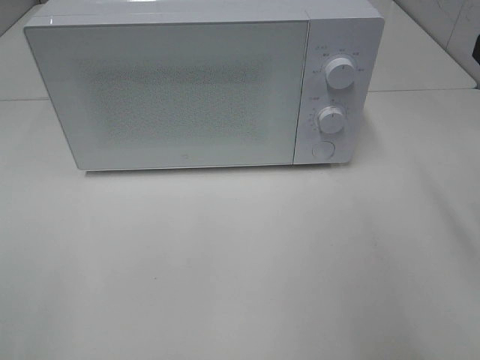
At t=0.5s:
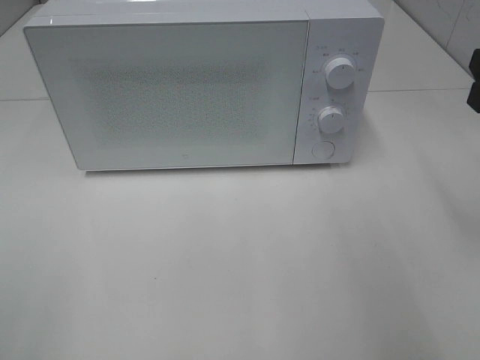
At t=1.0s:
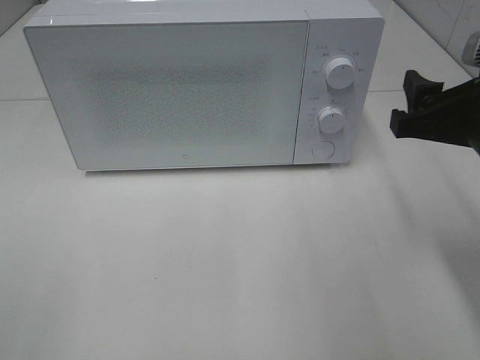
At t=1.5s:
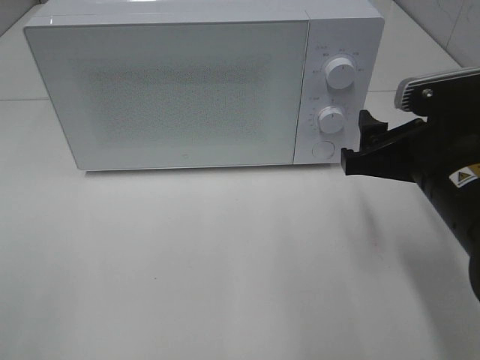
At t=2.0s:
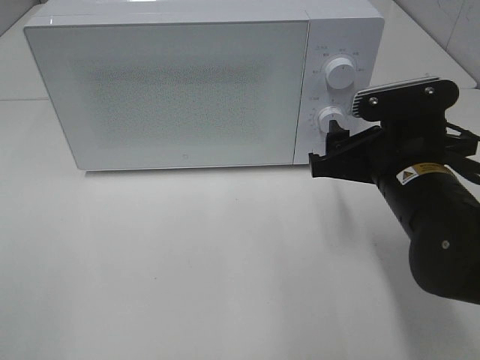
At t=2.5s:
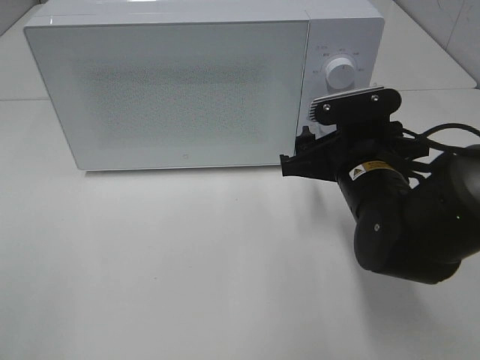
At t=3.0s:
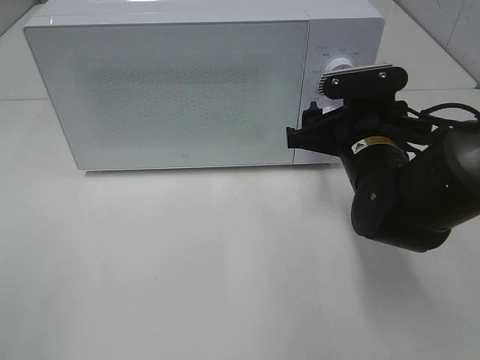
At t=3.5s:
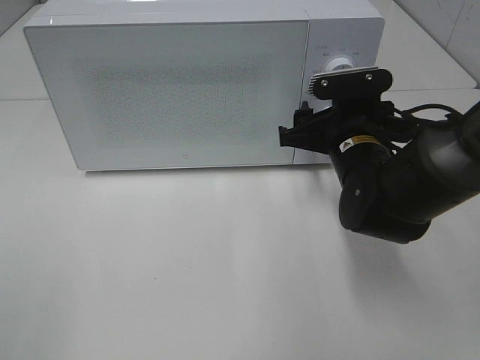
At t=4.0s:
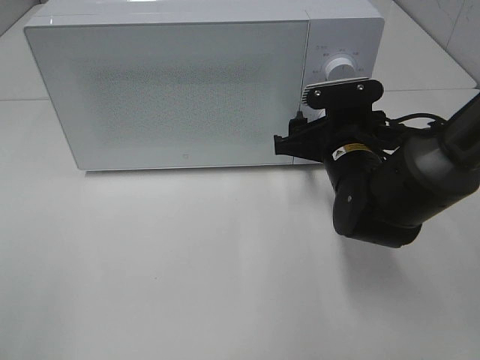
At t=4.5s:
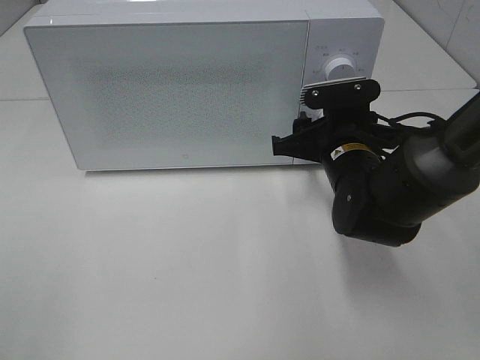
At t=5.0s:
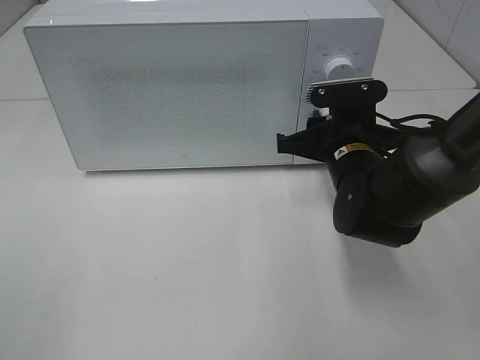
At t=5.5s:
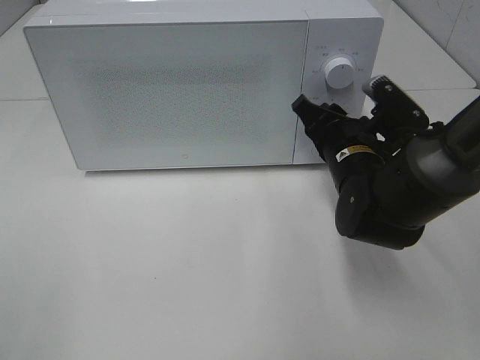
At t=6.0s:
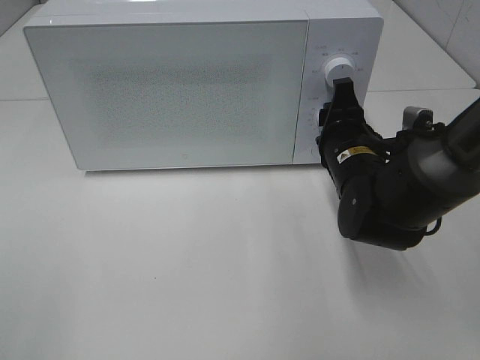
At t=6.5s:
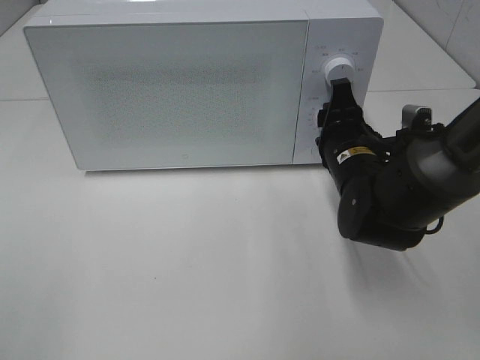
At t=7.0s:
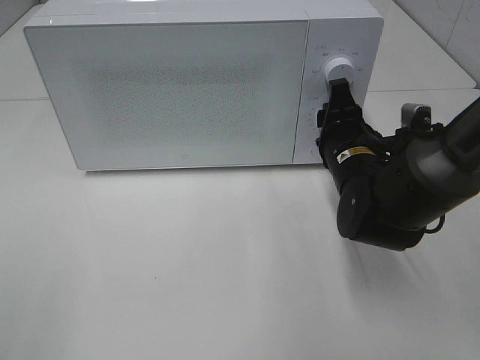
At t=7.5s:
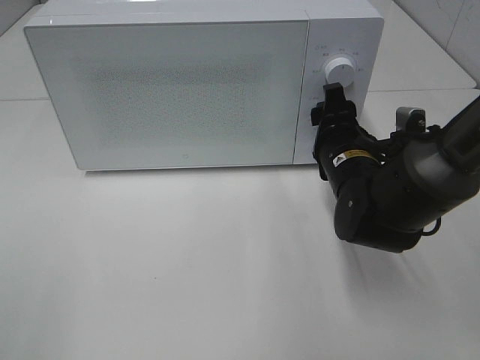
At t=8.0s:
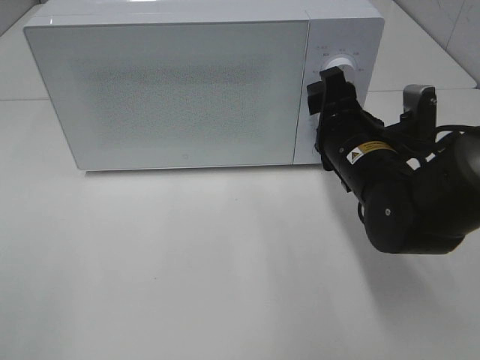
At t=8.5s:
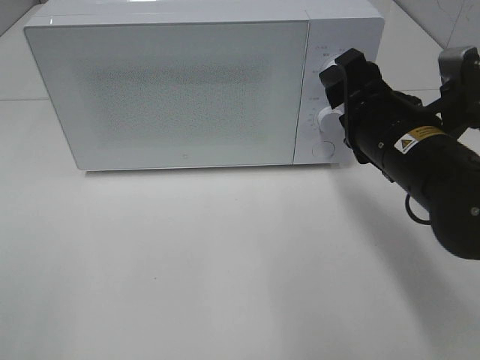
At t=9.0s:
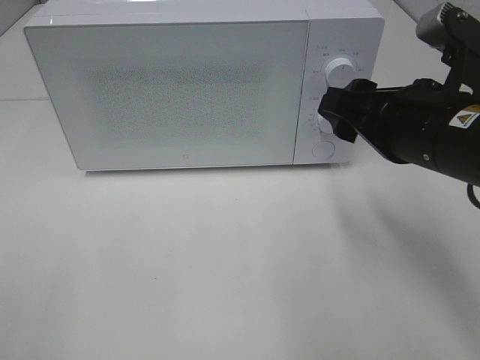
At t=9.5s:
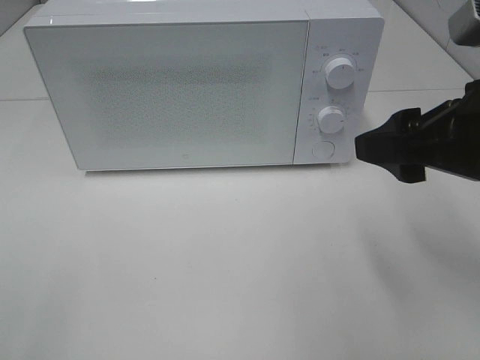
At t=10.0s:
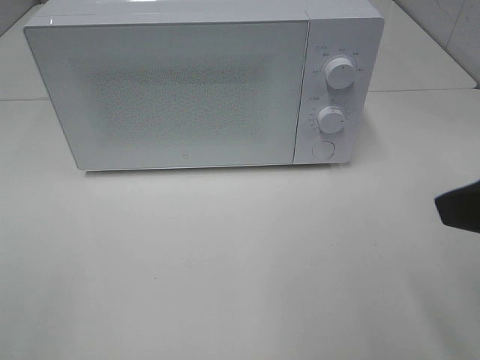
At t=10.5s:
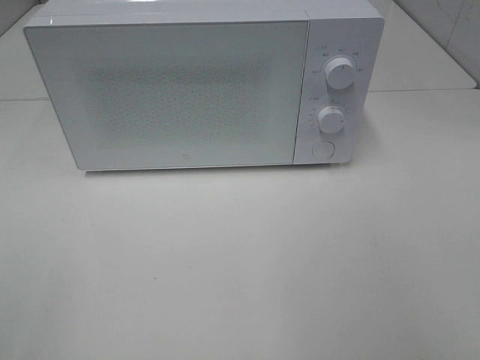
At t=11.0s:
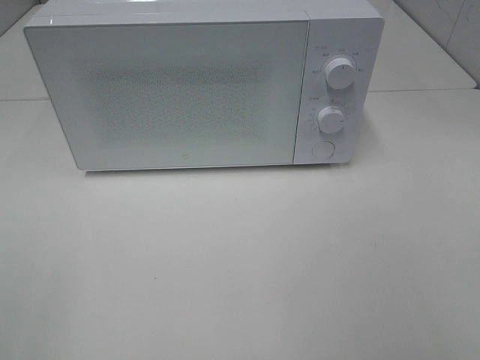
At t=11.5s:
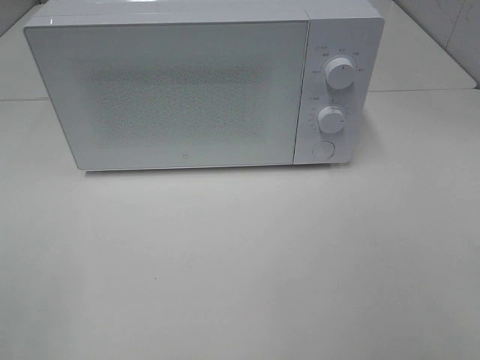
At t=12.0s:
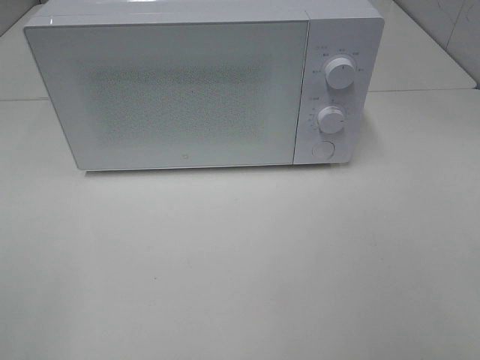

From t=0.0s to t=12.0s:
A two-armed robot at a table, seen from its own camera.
Task of the whole recording: Heat the burger.
Step, from t=0.0s to t=7.0s: Right hand: twist timer button.
From t=0.0s to t=2.0s: The right gripper heads downward, to the left and forward, covering about 15 cm.
From t=2.0s to t=4.0s: The right gripper shifts roughly 10 cm forward.
From t=4.0s to t=6.0s: The right gripper closes its fingers.
From t=6.0s to t=8.0s: The grippers make only small movements.
From t=8.0s to t=10.0s: The right gripper moves backward, upward and to the right, some 25 cm.
From t=10.0s to t=12.0s: The right gripper shifts some 15 cm backward and to the right.

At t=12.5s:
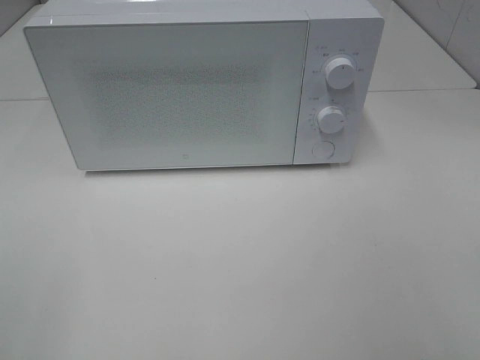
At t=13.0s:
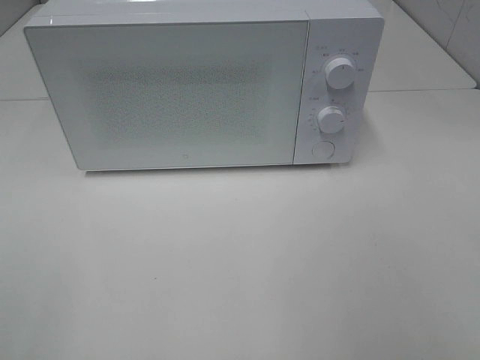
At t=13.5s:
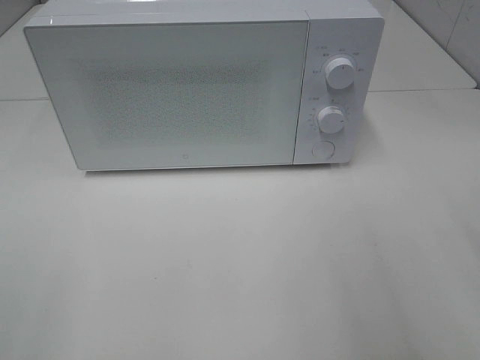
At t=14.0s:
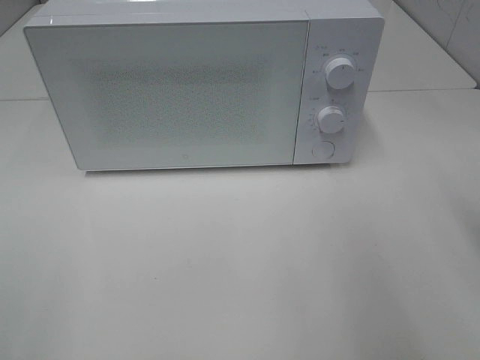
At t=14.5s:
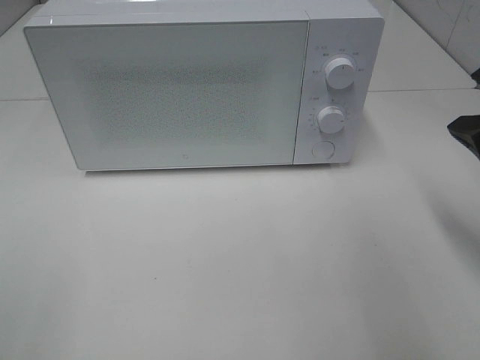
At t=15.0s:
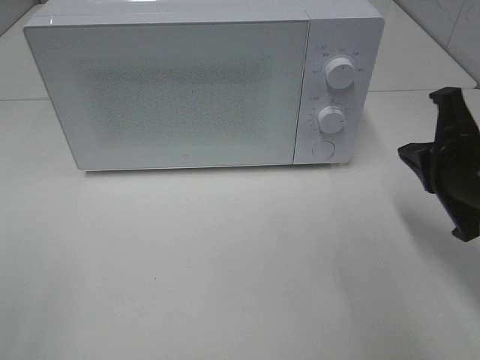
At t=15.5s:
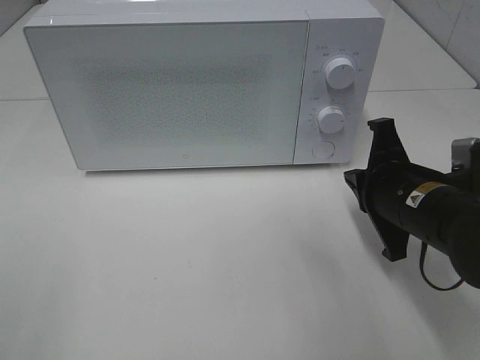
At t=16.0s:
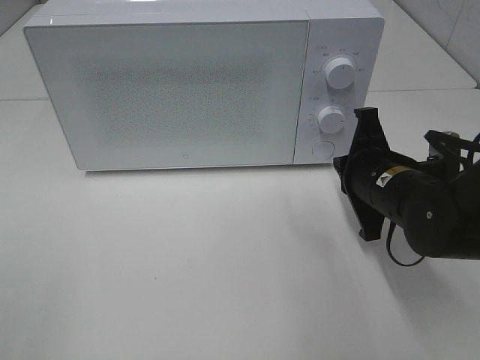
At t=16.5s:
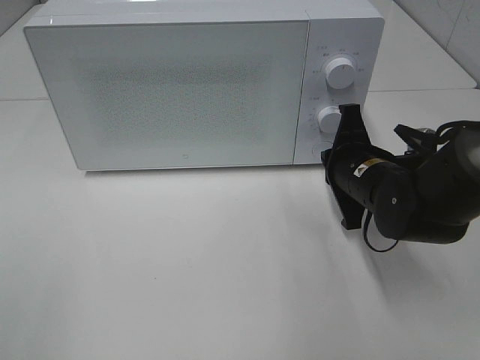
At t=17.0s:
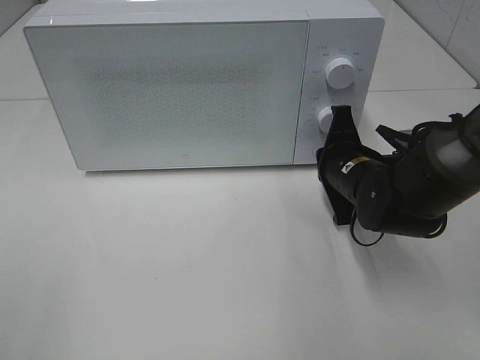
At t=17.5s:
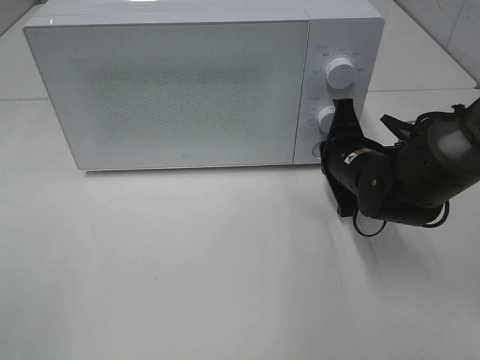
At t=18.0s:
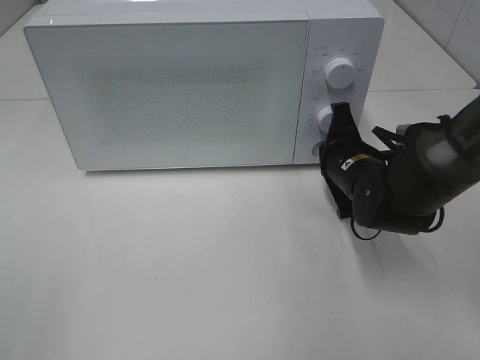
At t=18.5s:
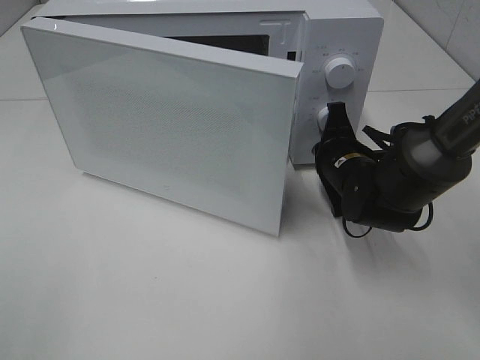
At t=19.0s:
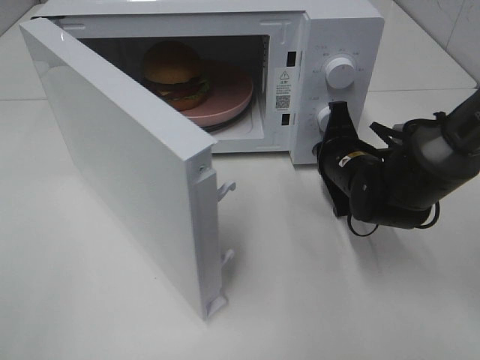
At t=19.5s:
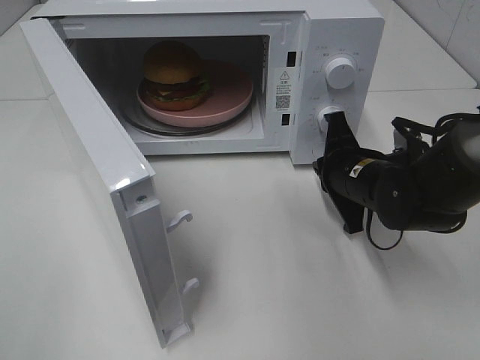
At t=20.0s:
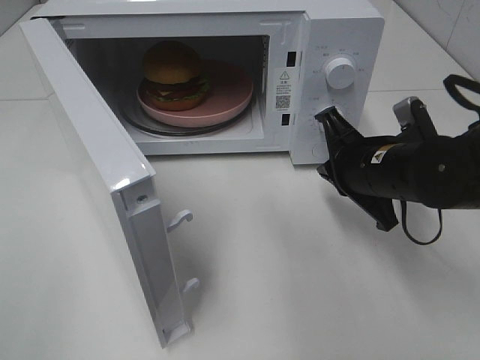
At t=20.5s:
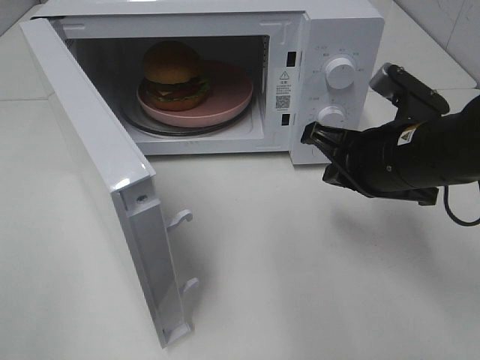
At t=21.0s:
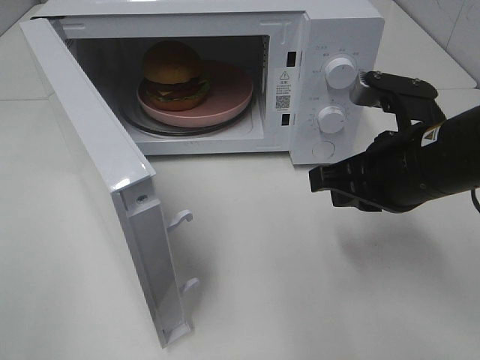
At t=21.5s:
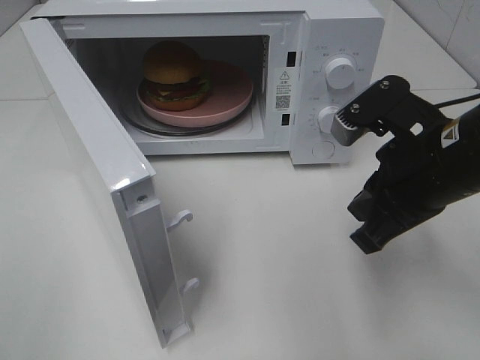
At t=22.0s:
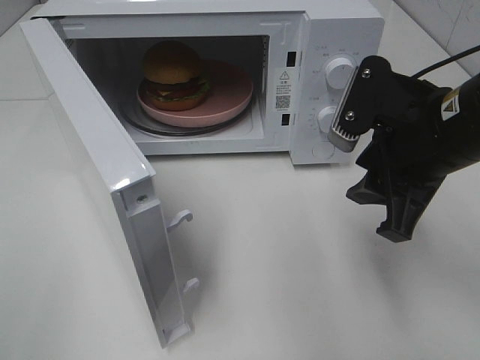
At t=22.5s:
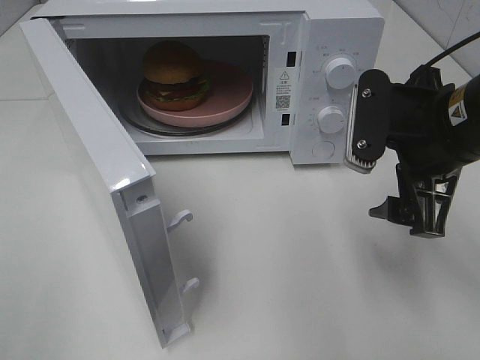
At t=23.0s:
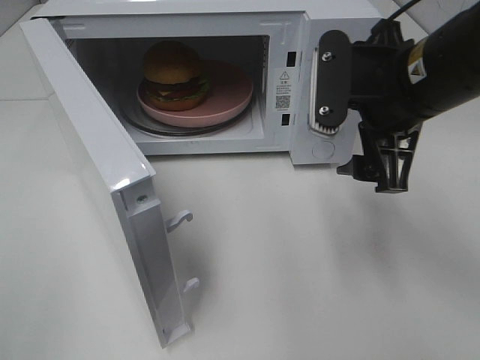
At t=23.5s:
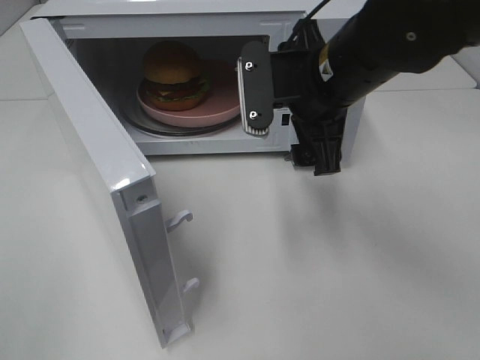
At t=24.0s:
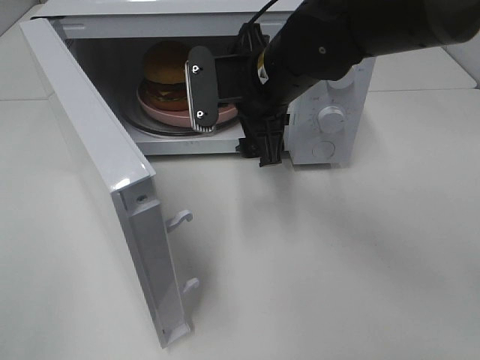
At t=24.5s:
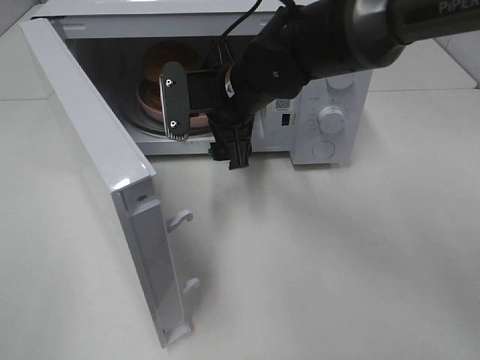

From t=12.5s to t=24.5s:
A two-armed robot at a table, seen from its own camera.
Task of the whole recording: Heat the burger.
Step, from t=12.5s to t=19.0s: Right hand: press the switch.
From t=12.5s to t=14.5s: The right gripper is displaced forward and downward by about 20 cm, and closes.
From t=14.5s to t=16.5s: The right gripper travels downward, to the left and forward by roughly 20 cm.
From t=16.5s to t=18.5s: The grippers stay close to where they were, moving slightly.
From t=18.5s to t=20.5s: The right gripper is displaced upward and backward by approximately 15 cm.
From t=20.5s to t=22.5s: The right gripper moves upward, approximately 5 cm, and opens up.
From t=22.5s to t=24.5s: The right gripper heads to the left and forward, covering roughly 20 cm.

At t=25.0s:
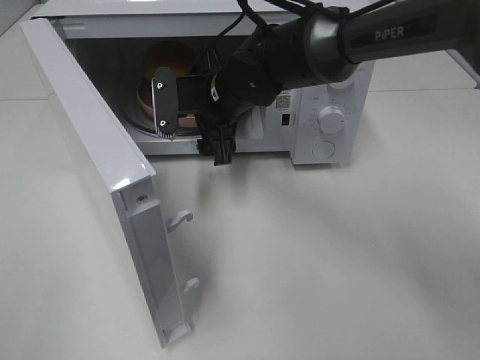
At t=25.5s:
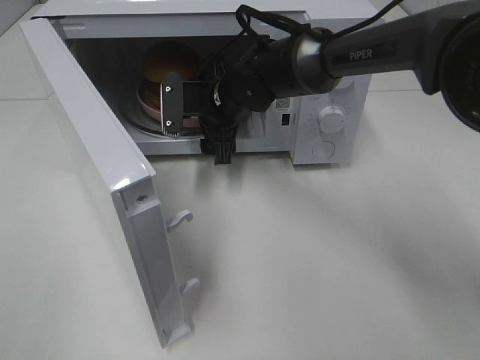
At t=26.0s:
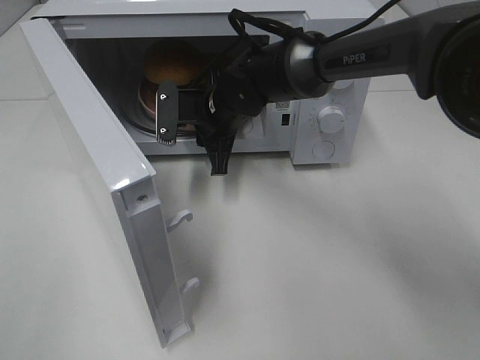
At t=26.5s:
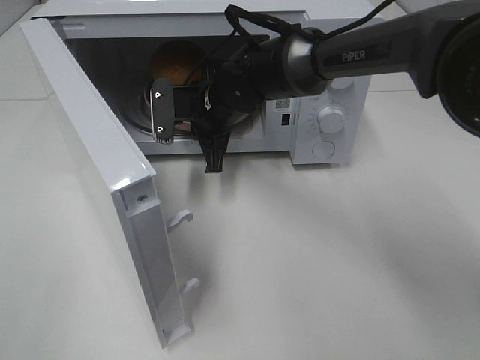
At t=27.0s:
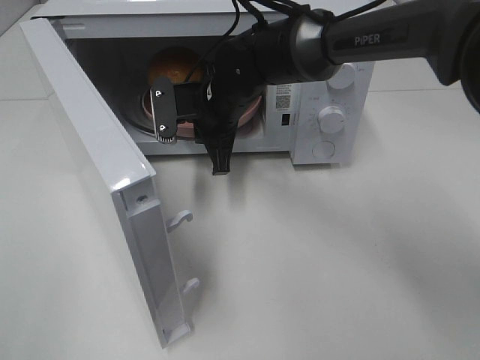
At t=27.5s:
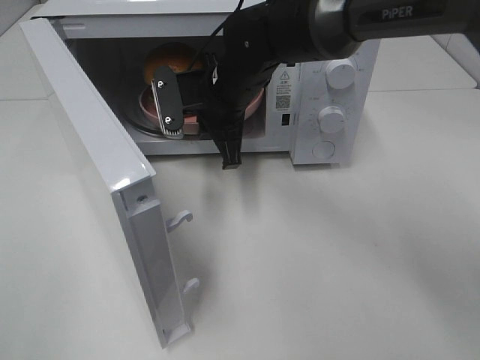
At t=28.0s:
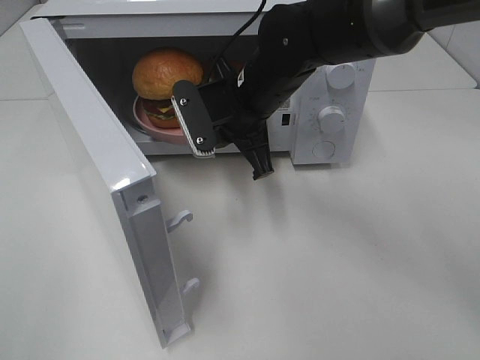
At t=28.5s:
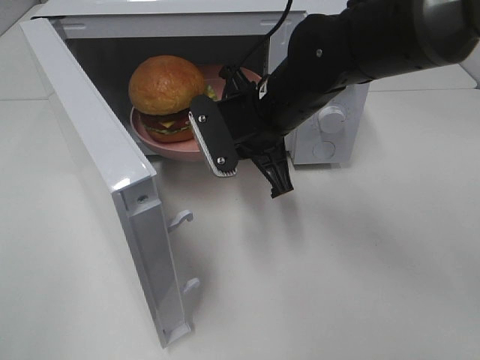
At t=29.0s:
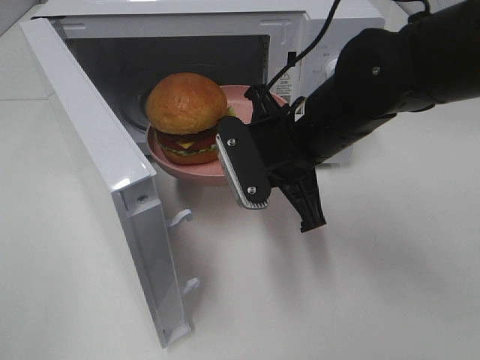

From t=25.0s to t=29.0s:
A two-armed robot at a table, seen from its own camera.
Task of the whole recording: Heat the burger.
From t=25.0s to t=27.0s: The right gripper closes.
From t=27.0s to t=29.0s: The right gripper moves backward and to the right, about 15 cm.
